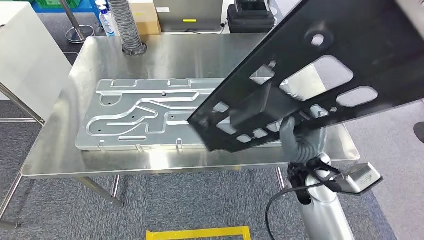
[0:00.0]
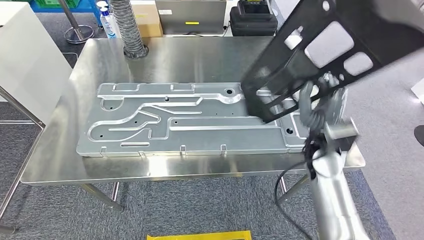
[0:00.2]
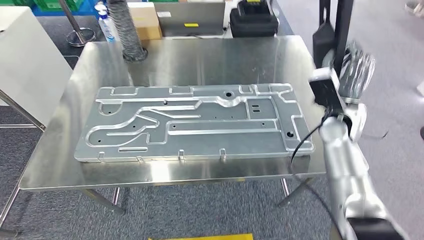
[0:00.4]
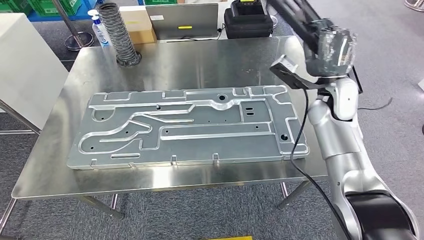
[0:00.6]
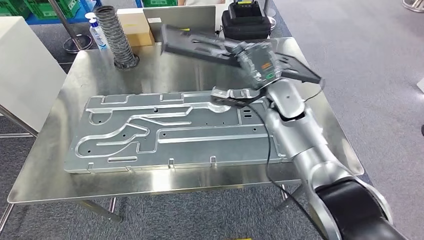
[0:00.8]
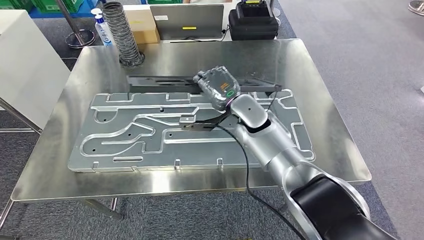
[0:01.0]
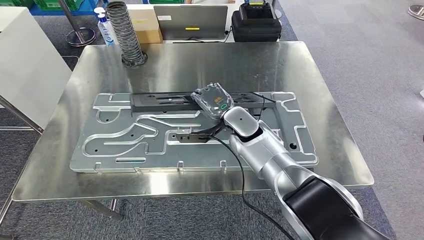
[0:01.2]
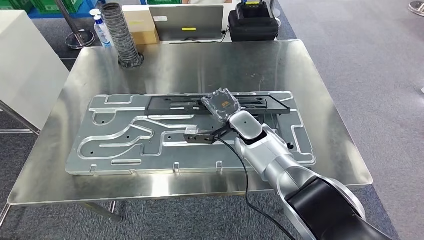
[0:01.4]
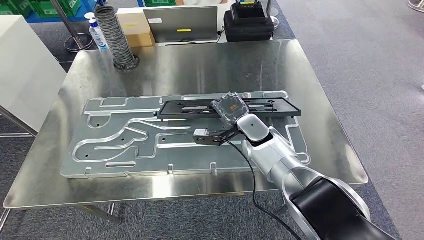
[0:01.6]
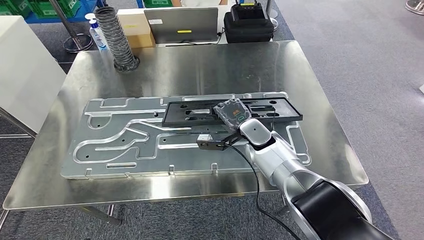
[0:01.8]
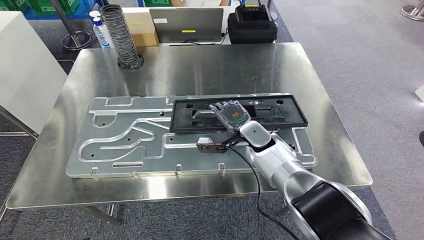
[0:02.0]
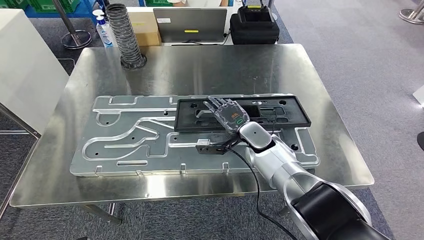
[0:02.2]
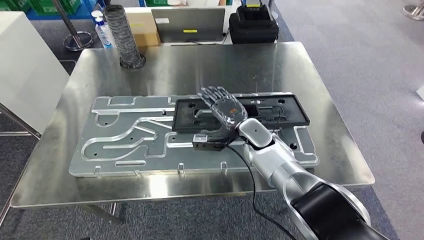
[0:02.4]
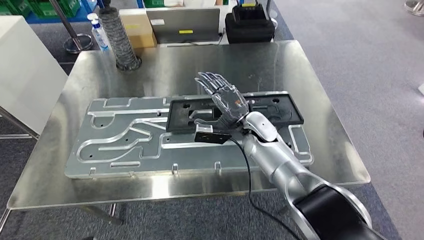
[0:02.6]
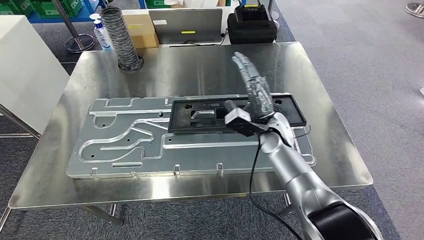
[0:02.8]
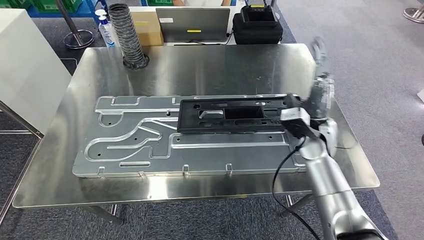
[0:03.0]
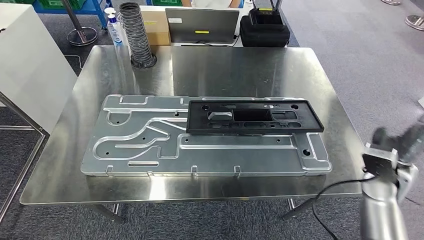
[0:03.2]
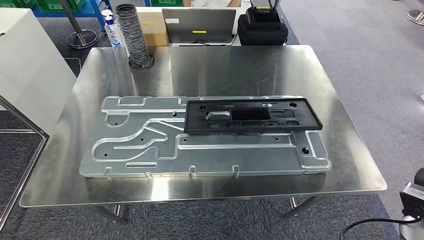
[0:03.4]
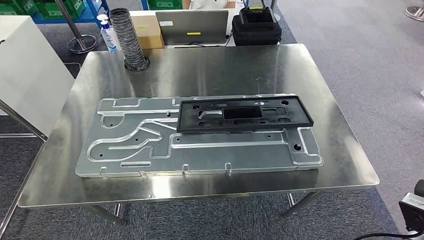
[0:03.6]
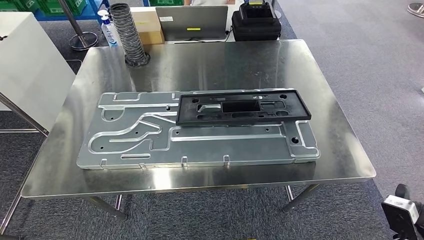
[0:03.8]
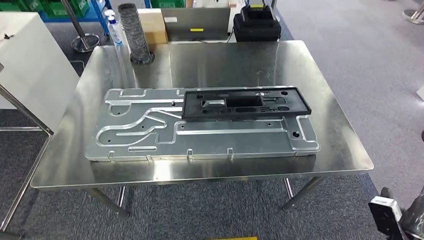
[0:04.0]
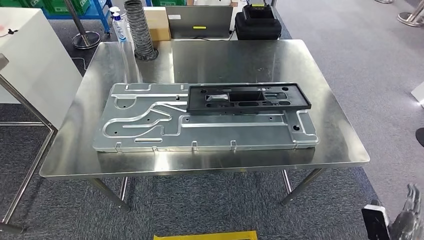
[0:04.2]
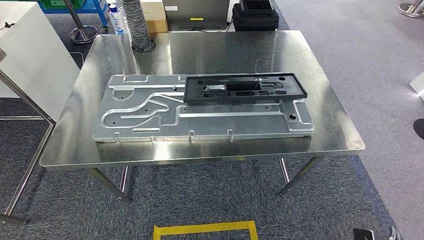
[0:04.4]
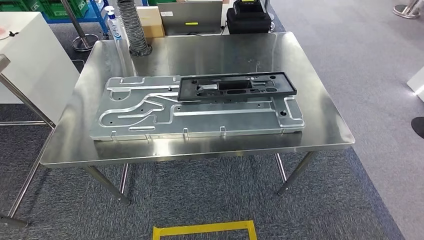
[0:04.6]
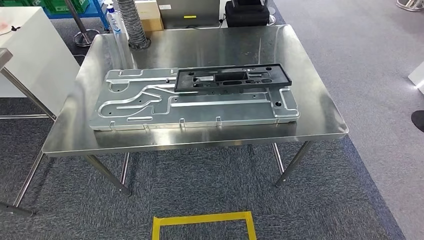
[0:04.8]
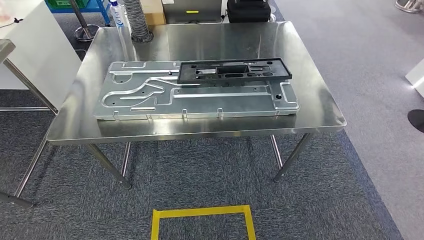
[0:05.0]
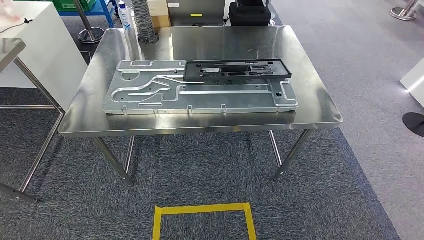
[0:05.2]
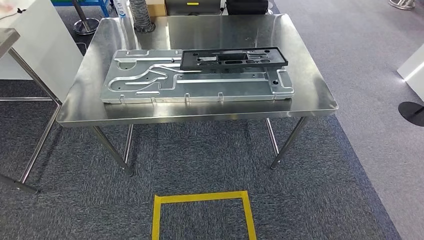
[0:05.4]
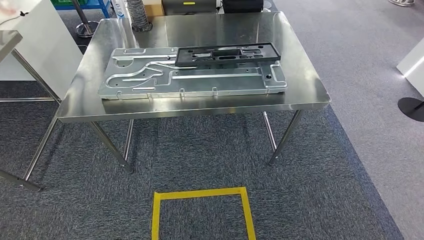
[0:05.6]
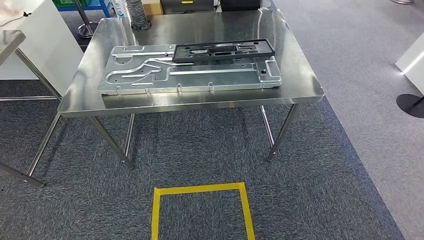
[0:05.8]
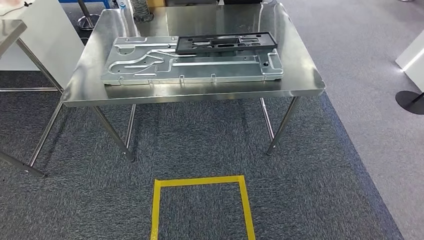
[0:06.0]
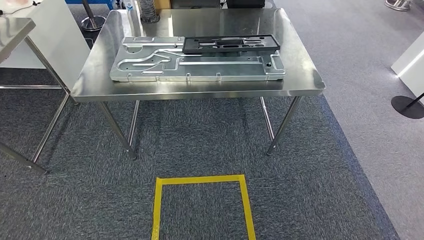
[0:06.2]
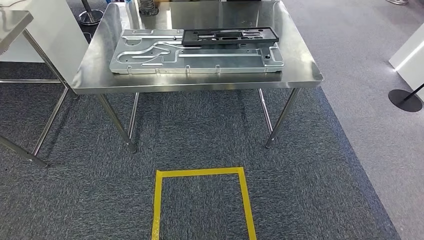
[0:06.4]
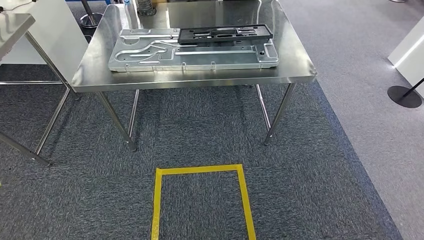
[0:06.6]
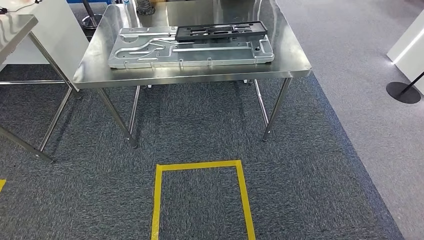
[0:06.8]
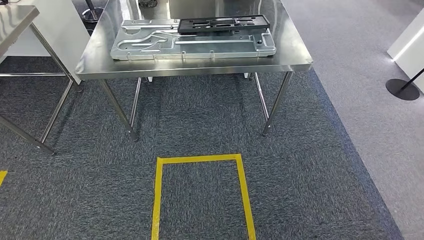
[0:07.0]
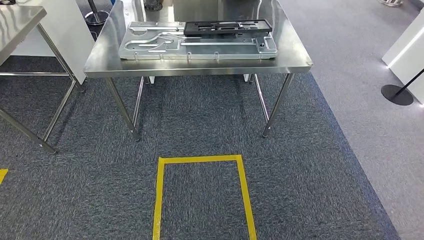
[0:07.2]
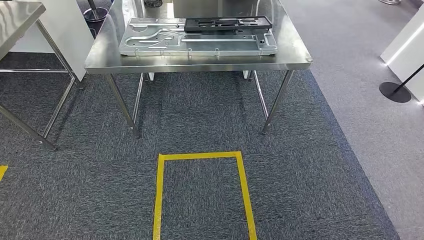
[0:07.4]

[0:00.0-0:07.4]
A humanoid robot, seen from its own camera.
Step, 0:00.0 to 0:01.8: Insert the large material into the corresponding hole on the workbench.
Step, 0:02.4 to 0:07.2: Move to the initial position of the shelf.
